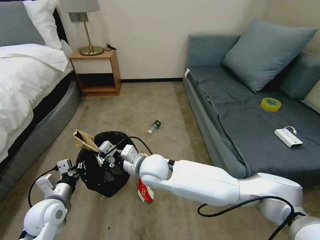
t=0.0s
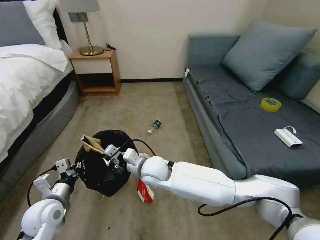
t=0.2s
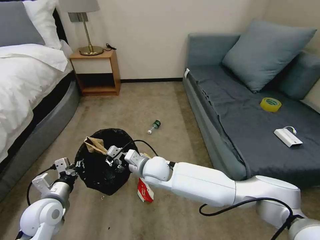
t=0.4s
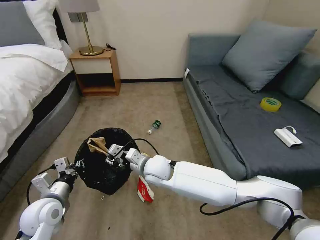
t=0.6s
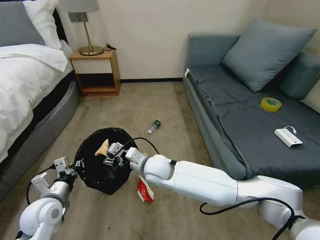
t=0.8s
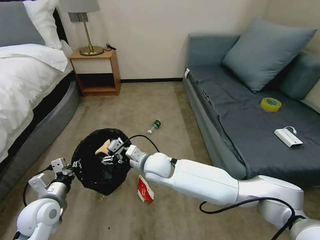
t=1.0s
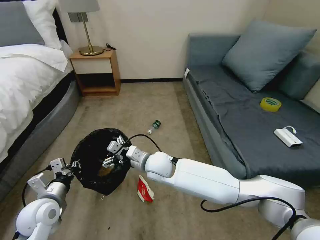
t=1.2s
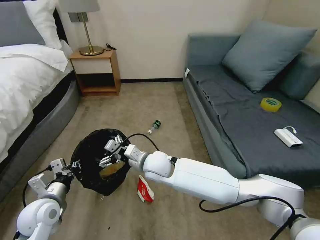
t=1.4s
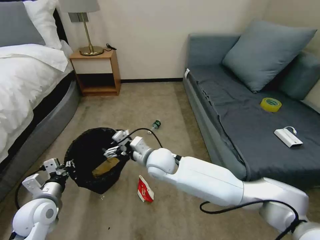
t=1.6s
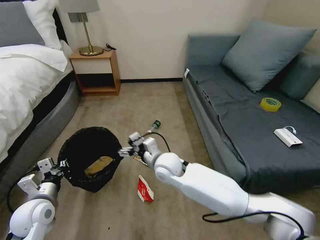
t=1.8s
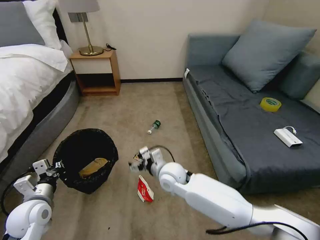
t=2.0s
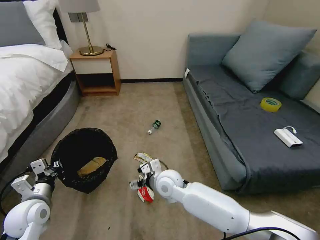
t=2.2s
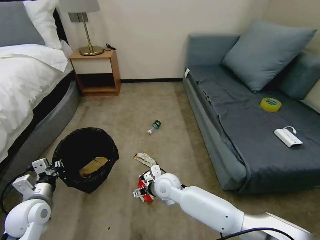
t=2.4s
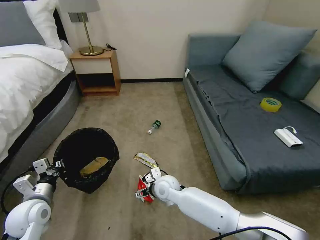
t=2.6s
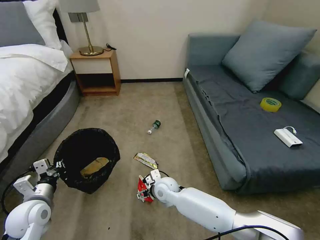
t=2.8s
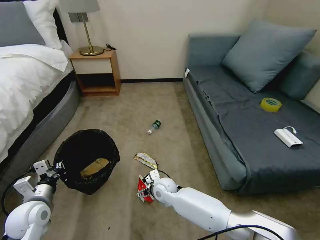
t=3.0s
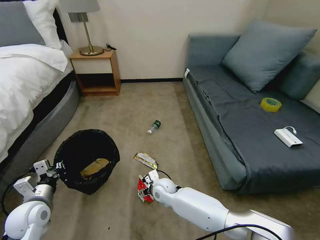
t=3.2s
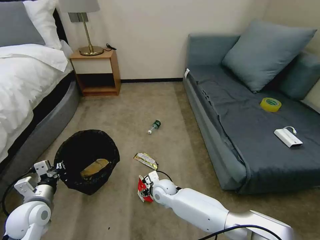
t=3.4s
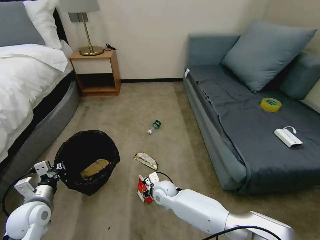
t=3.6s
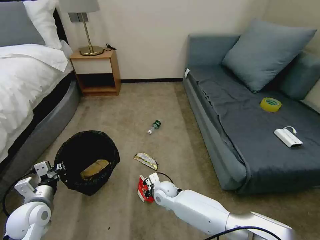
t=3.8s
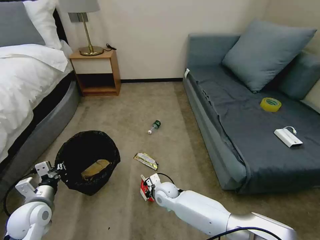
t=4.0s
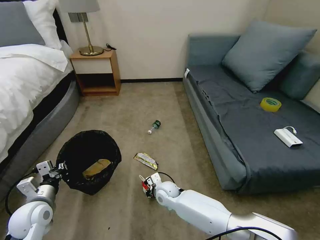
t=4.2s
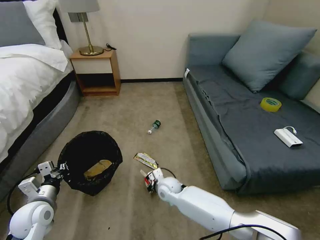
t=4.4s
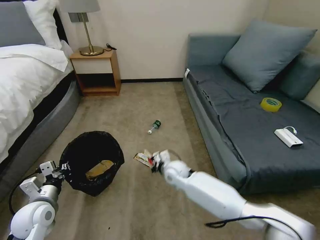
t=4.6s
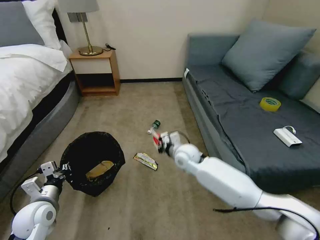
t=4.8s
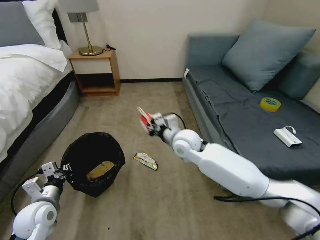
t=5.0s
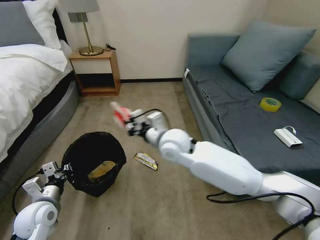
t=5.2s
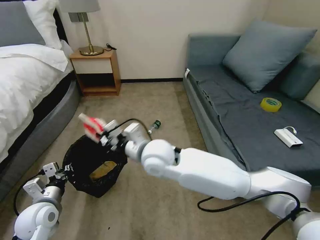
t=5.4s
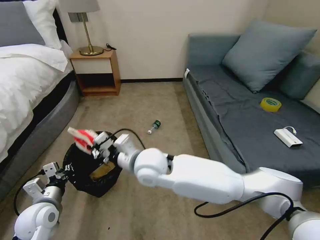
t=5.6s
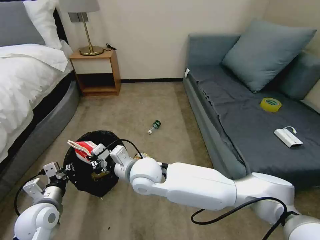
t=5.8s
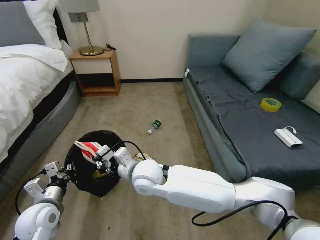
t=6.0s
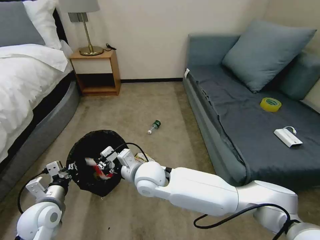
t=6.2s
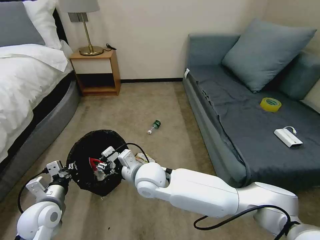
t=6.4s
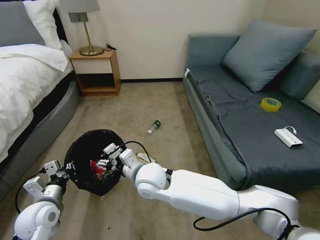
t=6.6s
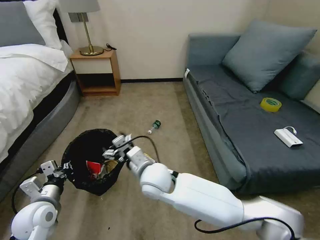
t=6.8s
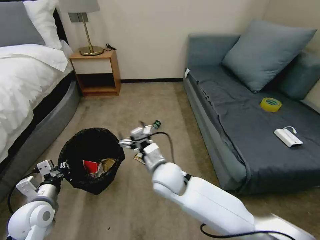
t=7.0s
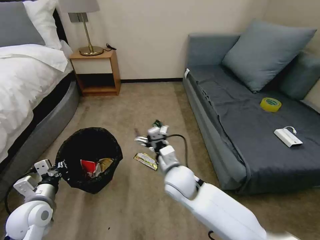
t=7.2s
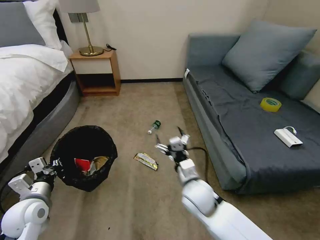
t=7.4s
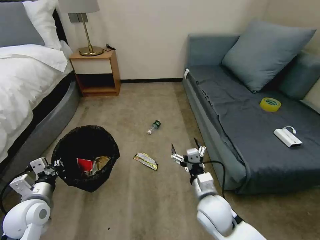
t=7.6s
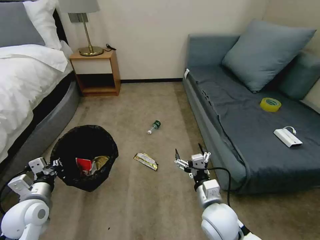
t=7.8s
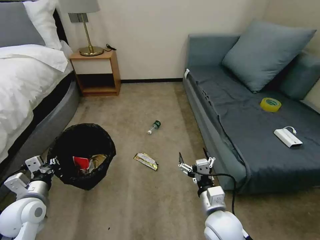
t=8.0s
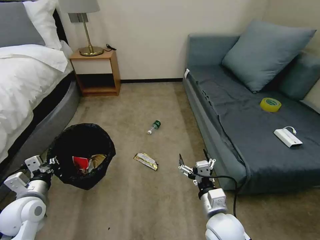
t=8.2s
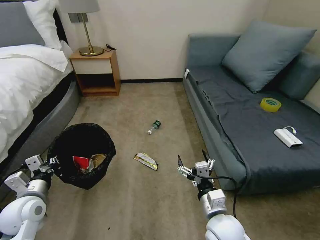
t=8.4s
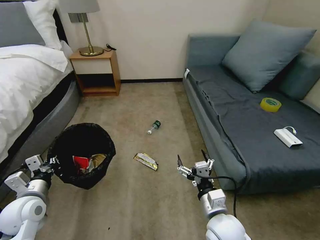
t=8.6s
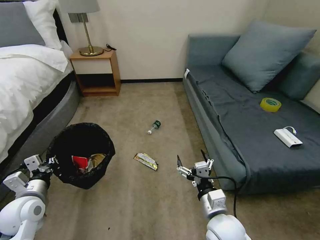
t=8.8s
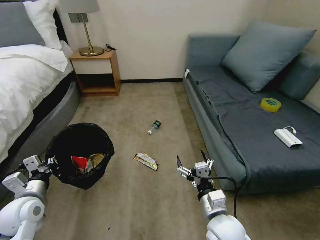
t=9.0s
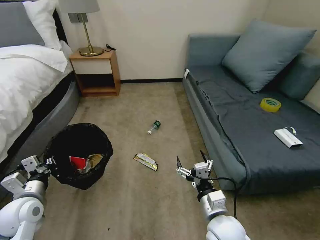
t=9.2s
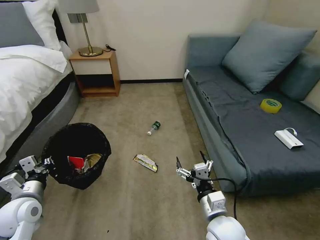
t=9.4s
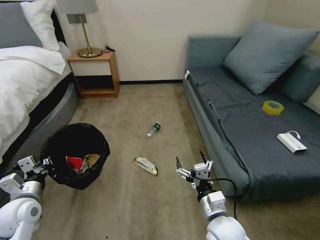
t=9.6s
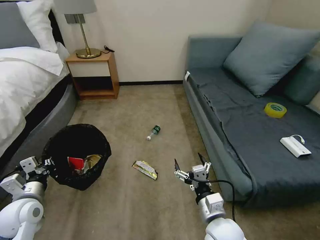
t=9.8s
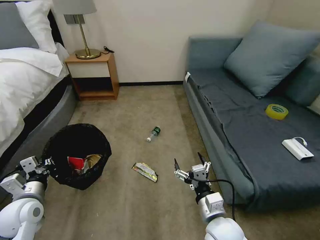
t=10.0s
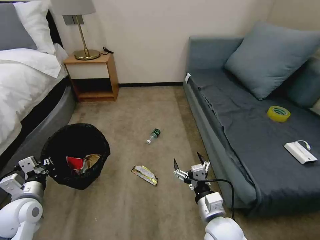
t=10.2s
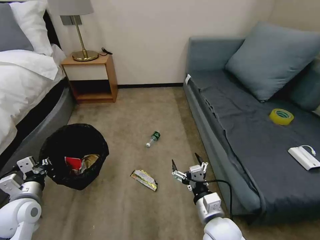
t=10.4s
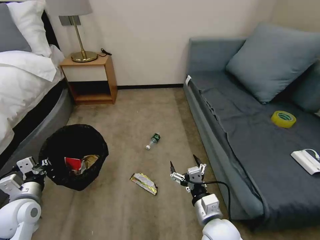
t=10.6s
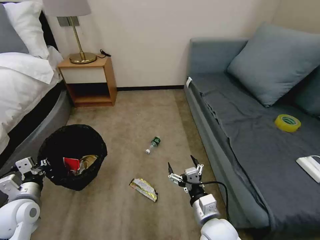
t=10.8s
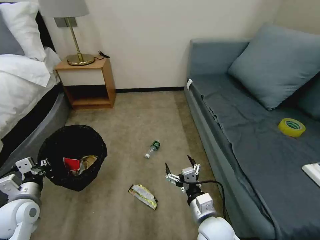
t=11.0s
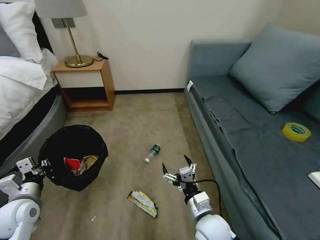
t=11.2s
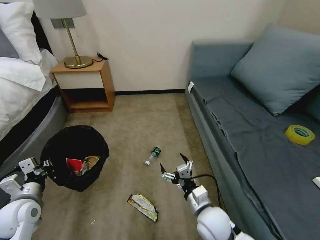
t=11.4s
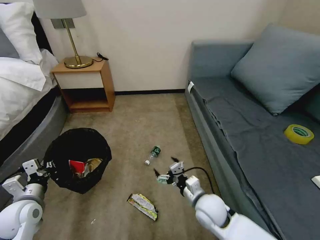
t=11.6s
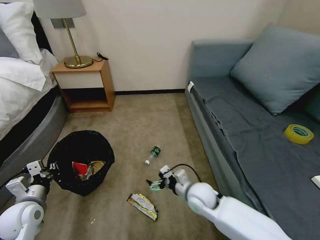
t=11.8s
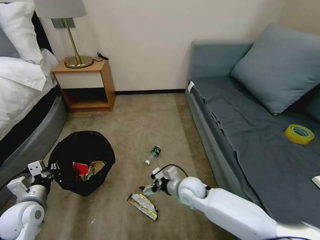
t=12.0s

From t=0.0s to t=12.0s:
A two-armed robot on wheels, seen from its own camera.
Task of the whole recording: Pick up the trash bin, then pick up the garbage on the floor and place it into the trash bin.
From t=0.0s to t=1.6s: The right gripper opens.
From t=1.6s to t=3.0s: The right gripper is displaced downward by some 20 cm.
From t=3.0s to t=4.4s: The right gripper closes its fingers.
From t=4.4s to t=6.0s: The right gripper shifts about 20 cm upward and to the left.
From t=6.0s to t=7.6s: The right gripper shifts some 20 cm to the right, and opens up.
From t=7.6s to t=9.0s: The right gripper heads backward, covering some 5 cm.
From t=10.4s to t=12.0s: The right gripper shifts some 15 cm forward.

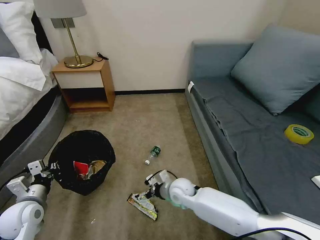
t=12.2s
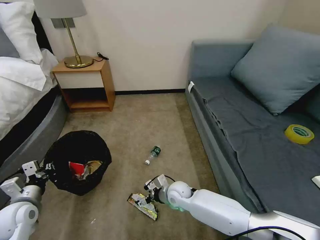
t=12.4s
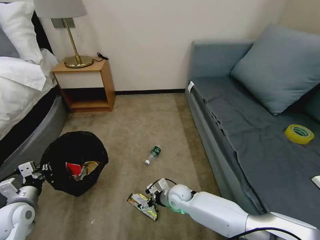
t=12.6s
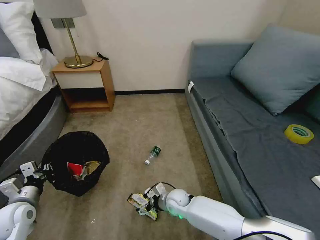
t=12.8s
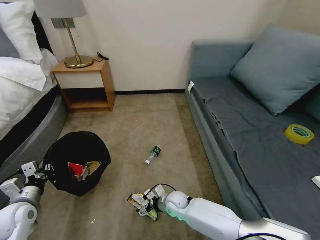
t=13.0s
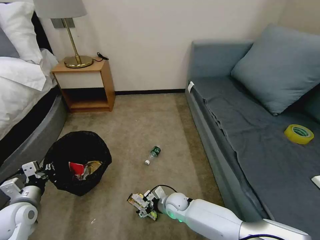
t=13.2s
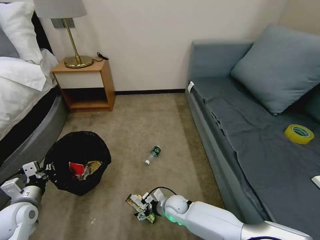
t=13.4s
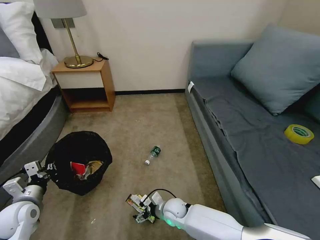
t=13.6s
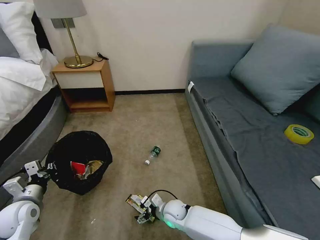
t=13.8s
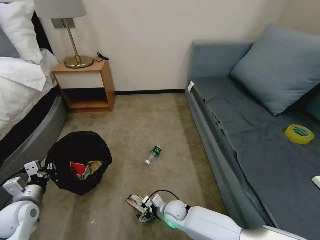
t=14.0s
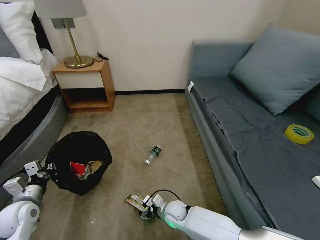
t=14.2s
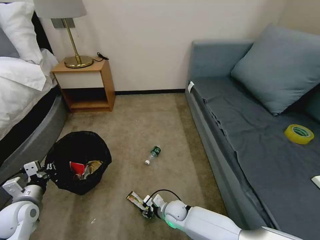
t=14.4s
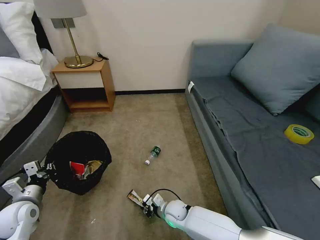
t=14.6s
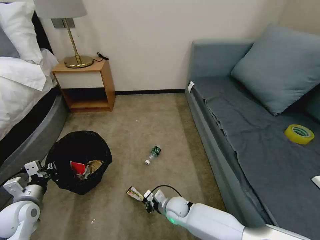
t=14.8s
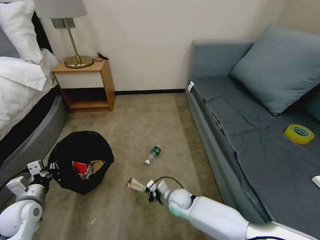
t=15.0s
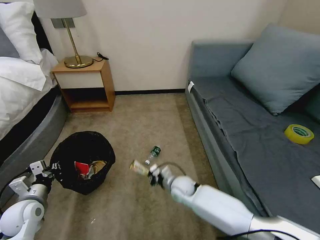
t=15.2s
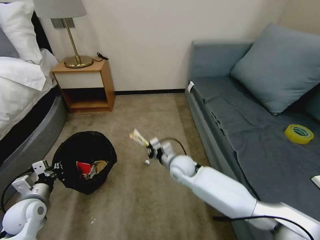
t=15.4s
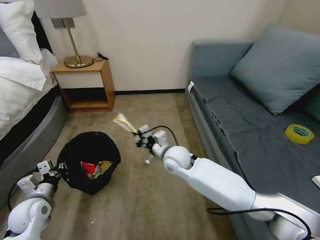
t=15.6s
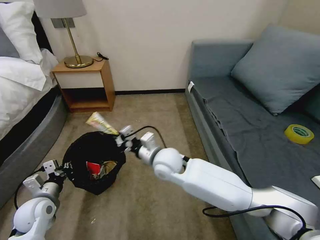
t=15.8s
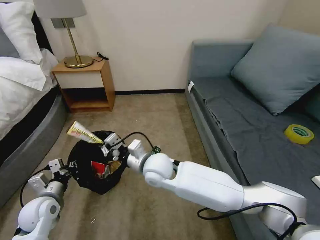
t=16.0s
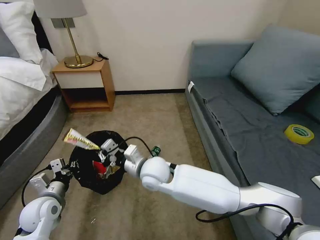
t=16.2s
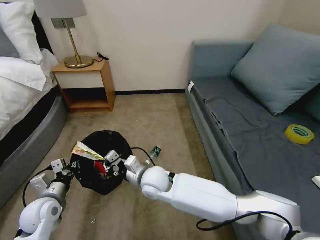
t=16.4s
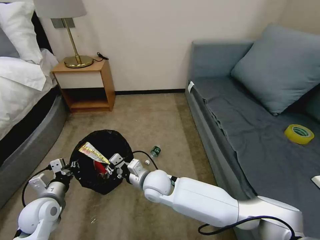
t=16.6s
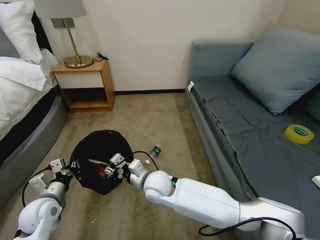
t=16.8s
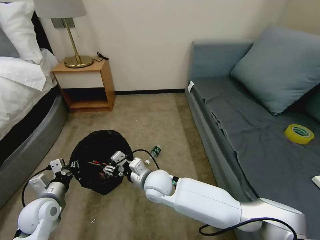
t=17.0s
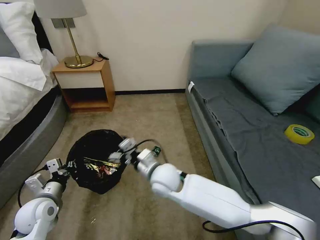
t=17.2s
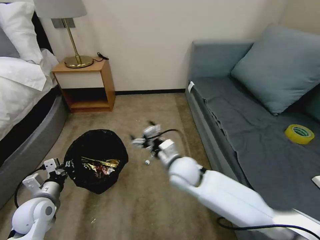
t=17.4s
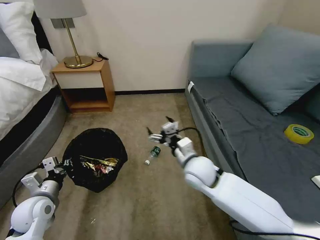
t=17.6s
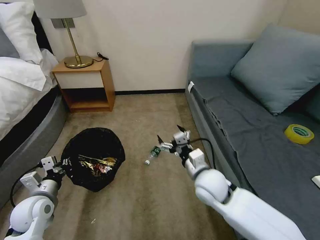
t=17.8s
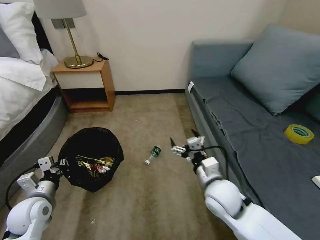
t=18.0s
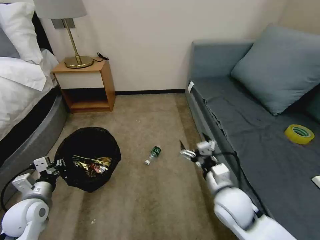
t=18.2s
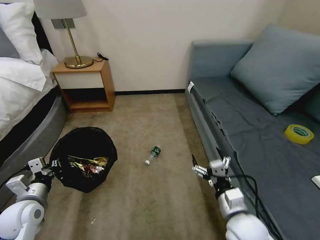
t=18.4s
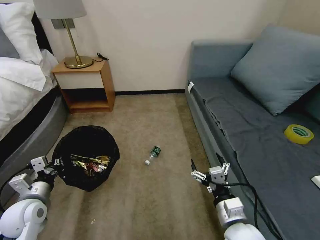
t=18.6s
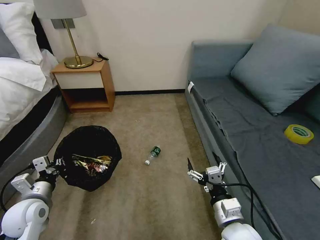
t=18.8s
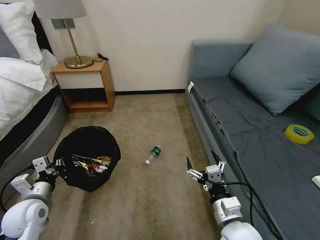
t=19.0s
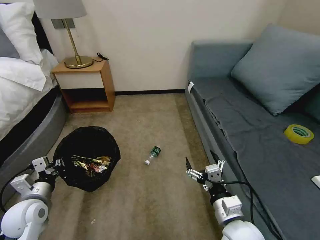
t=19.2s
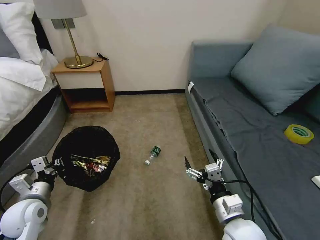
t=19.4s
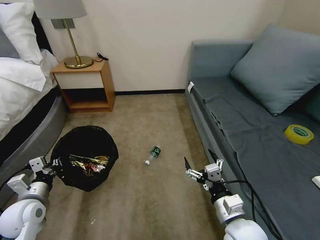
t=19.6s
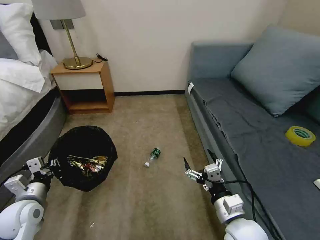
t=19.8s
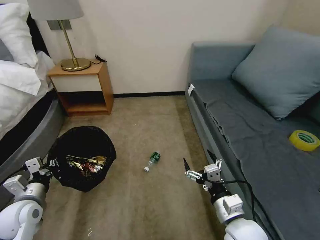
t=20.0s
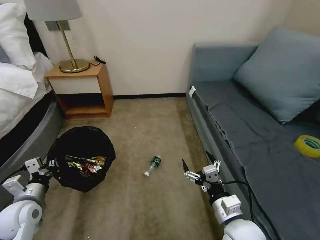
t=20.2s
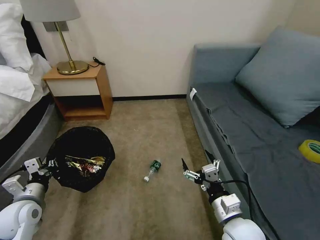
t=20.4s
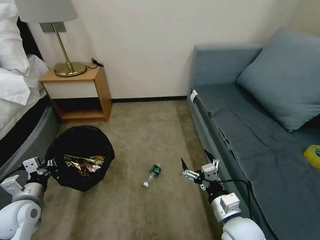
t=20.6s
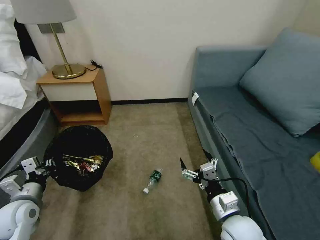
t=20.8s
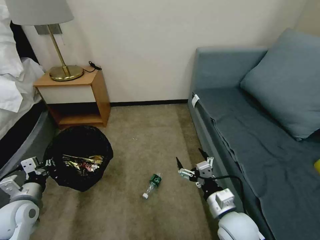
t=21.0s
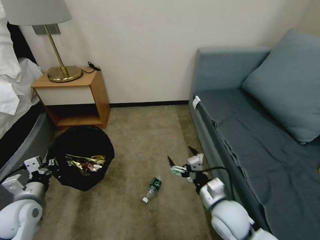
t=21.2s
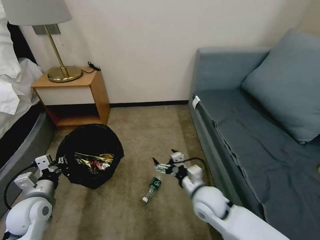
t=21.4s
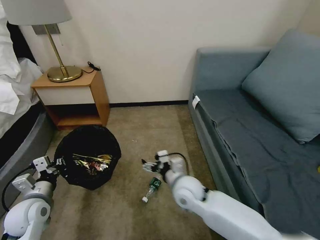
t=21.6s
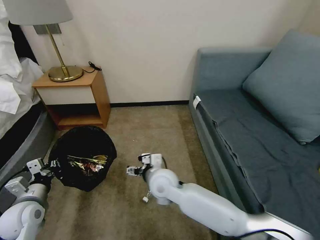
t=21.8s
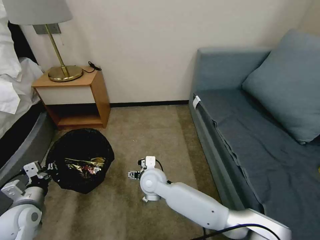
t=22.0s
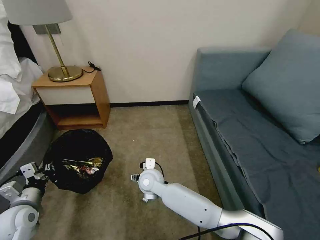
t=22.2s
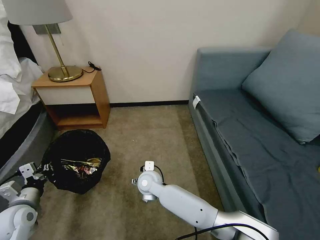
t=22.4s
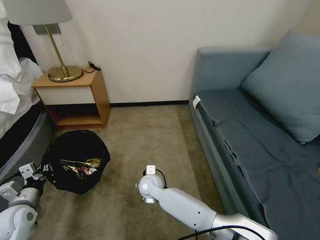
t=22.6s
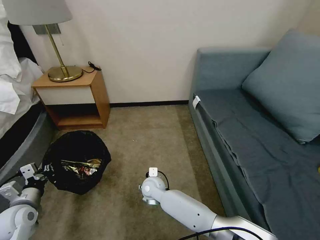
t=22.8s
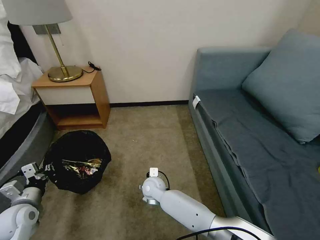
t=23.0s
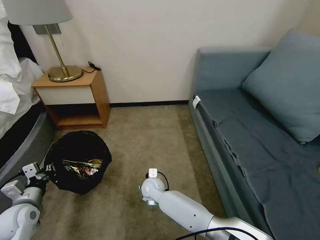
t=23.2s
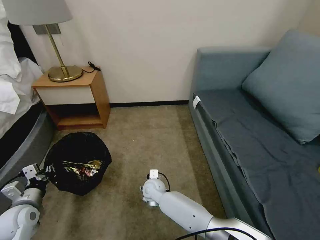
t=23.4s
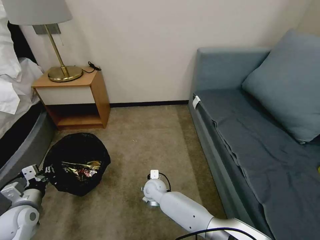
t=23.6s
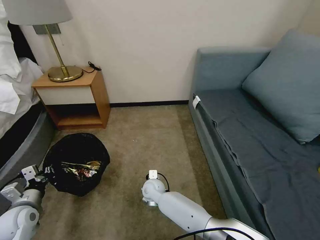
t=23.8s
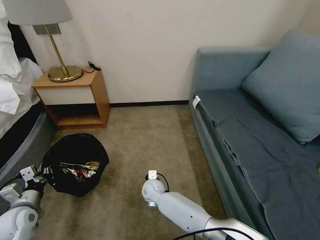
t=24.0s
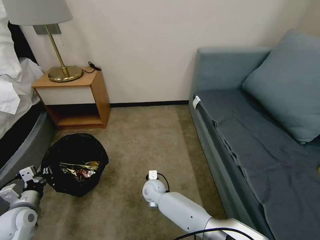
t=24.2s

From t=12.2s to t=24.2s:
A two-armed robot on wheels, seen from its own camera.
Task of the whole recording: Pick up the trash bin, then pick up the garbage on the floor and place it into the trash bin.
From t=12.2s to t=13.8s: The right gripper travels downward and backward by roughly 10 cm.
From t=13.8s to t=15.2s: The right gripper is displaced upward and forward by roughly 10 cm, and closes its fingers.
From t=15.2s to t=16.6s: The left gripper goes some 5 cm to the right, while the right gripper shifts roughly 15 cm to the left and upward.
From t=16.6s to t=18.2s: The right gripper moves to the right and backward, about 25 cm, and opens.
From t=18.2s to t=19.8s: The right gripper moves backward, about 5 cm.
From t=19.8s to t=21.2s: The right gripper moves about 5 cm.
From t=21.2s to t=22.6s: The right gripper heads to the left, forward and downward, covering roughly 30 cm.
From t=22.6s to t=24.2s: The right gripper heads downward, covering roughly 5 cm, and closes up.
